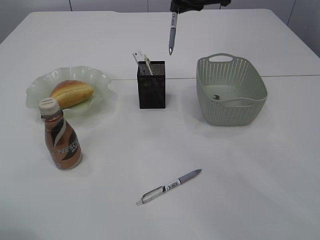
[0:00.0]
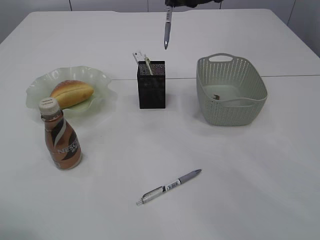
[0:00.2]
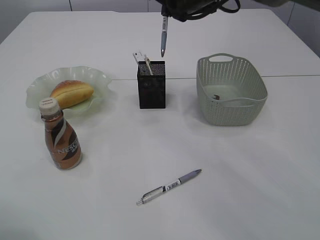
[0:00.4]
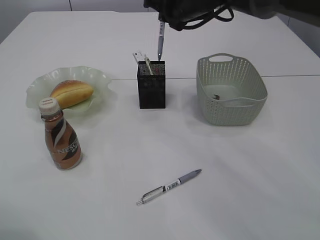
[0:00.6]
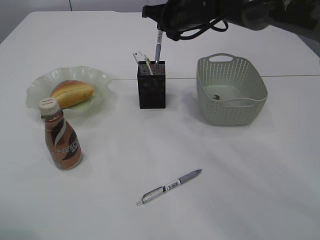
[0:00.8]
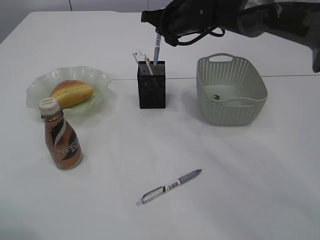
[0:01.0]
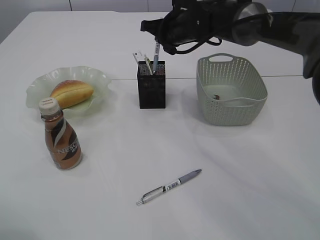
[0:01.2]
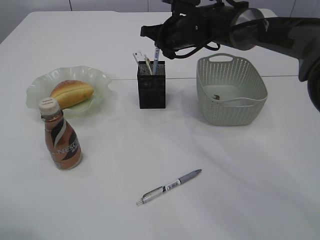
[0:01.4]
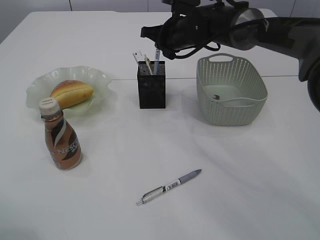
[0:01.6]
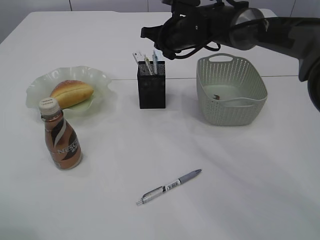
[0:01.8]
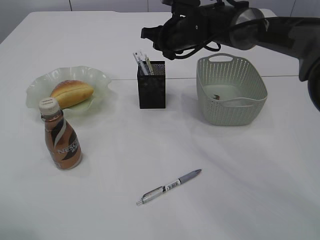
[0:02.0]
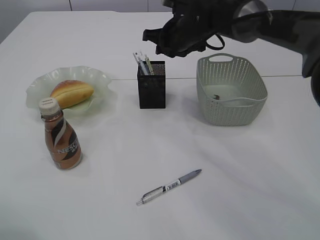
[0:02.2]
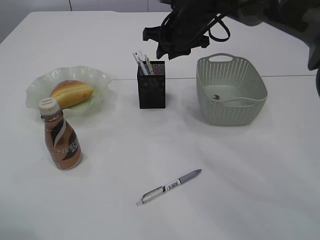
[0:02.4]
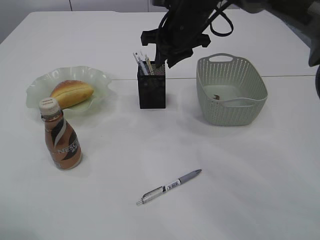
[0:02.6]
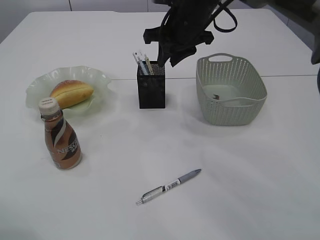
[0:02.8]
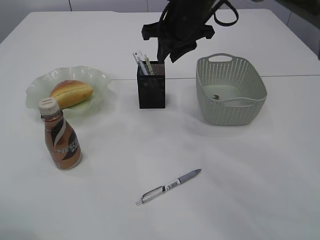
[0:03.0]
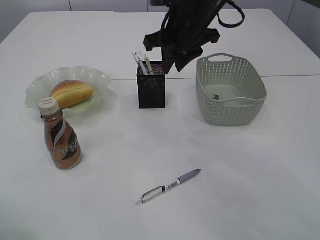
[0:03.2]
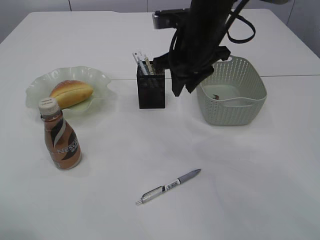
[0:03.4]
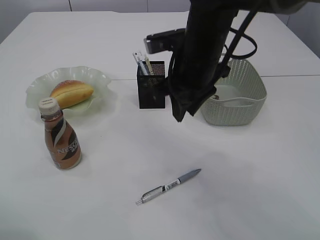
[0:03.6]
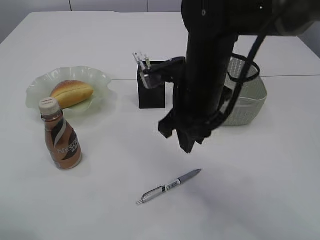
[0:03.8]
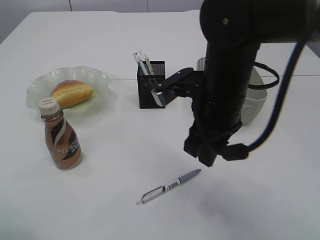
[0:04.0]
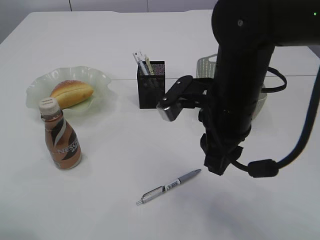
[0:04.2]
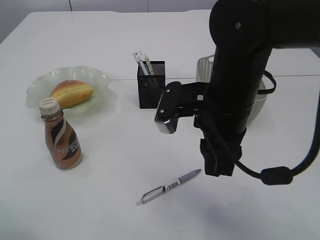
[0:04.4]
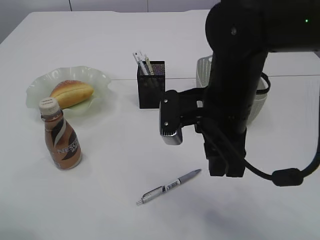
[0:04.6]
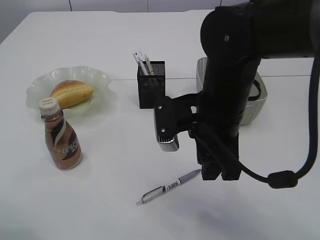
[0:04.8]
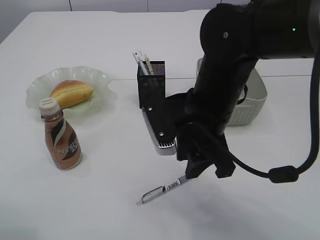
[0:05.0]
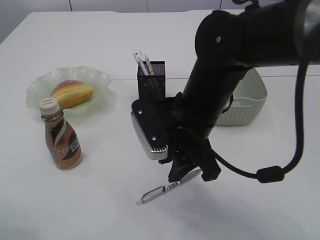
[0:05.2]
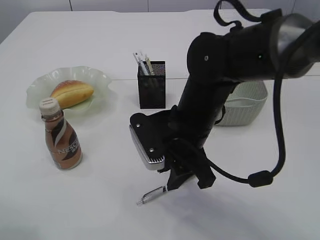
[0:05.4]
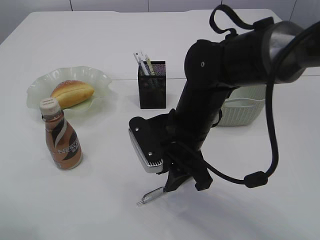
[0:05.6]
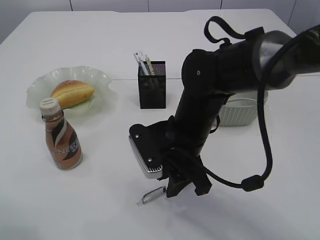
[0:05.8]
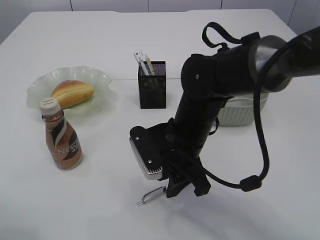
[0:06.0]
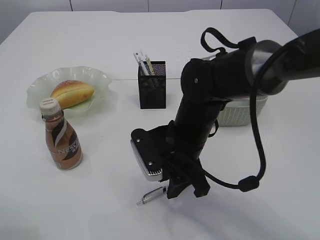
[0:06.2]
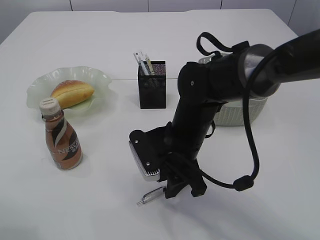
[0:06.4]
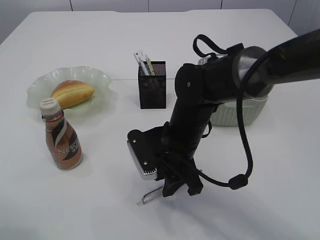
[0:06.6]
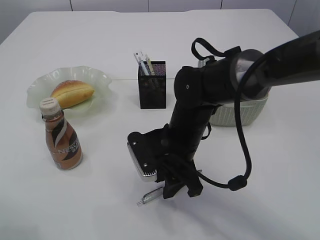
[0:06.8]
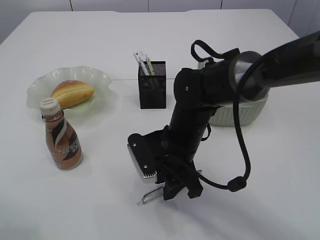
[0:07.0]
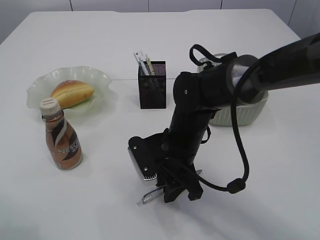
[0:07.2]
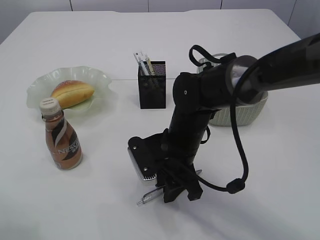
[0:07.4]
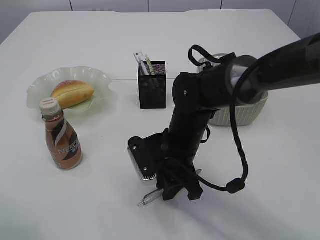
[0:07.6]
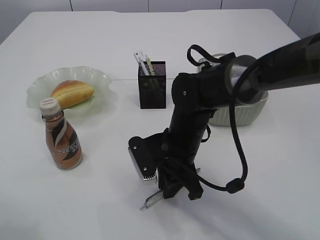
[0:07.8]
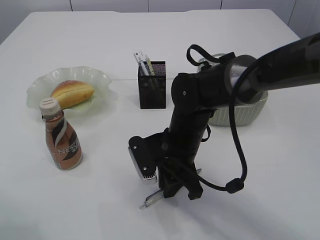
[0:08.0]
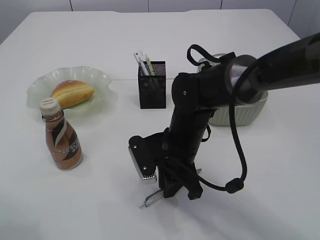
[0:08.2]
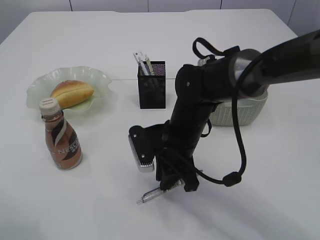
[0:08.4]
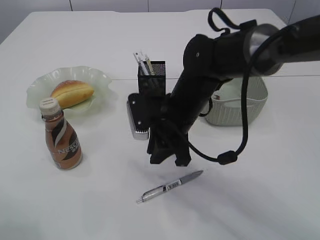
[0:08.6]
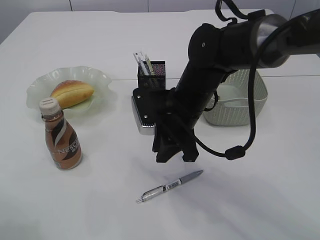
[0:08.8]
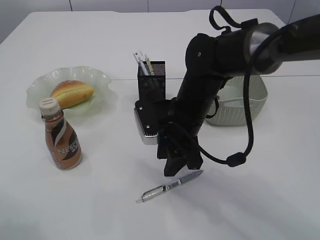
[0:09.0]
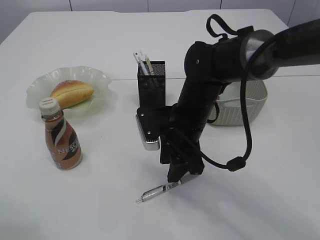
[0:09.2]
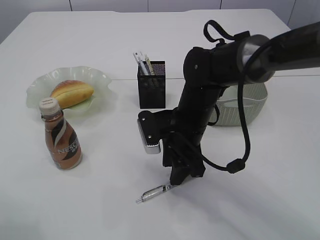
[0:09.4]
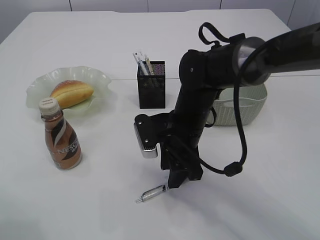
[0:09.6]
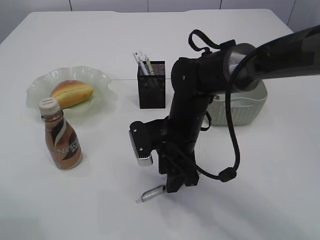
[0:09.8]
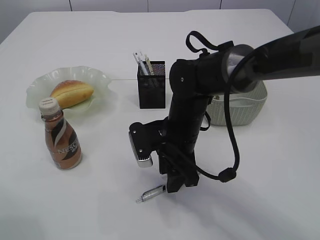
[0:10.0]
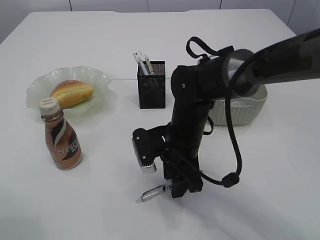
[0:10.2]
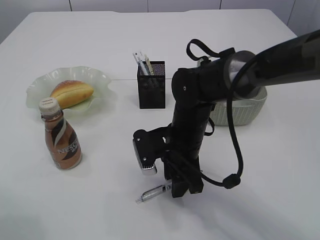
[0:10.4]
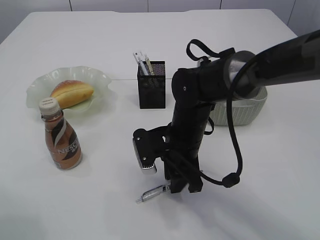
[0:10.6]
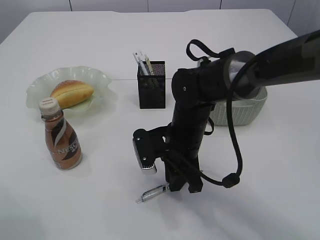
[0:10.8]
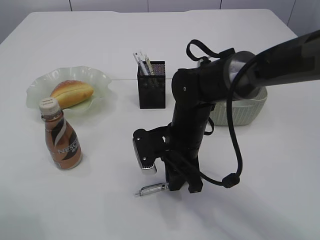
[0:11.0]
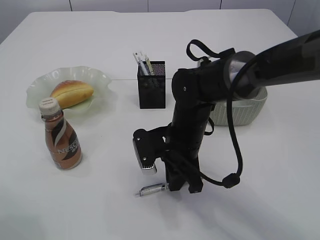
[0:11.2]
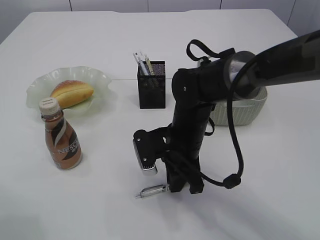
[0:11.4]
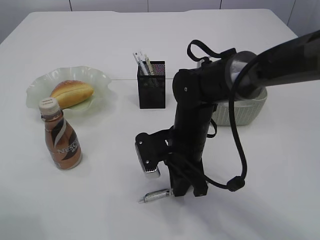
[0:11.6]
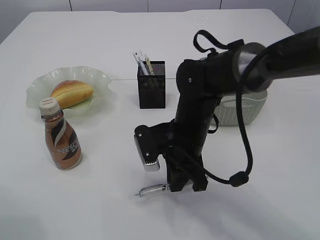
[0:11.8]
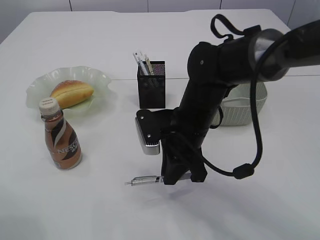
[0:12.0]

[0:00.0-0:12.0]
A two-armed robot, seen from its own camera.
Step, 0.0 to 2.0 s: Place the pen into the pen holder.
0.0 to 1.6 s: The right gripper is displaced downward and forward by some 15 cm.
1.6 to 3.0 s: The right gripper travels upward and backward by roughly 10 cm.
3.0 to 4.4 s: The right gripper moves backward, approximately 20 cm.
4.4 to 6.0 s: The right gripper travels downward by some 10 cm.
6.0 to 7.6 s: The grippers stay close to where they were, moving slightly.
7.6 to 9.0 s: The right gripper changes place by some 5 cm.
9.0 to 10.4 s: The grippers move only a little.
10.4 to 12.0 s: The right gripper closes its fingers.

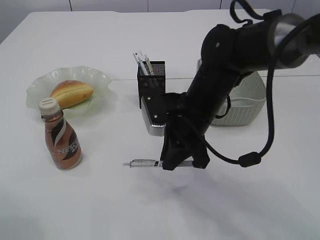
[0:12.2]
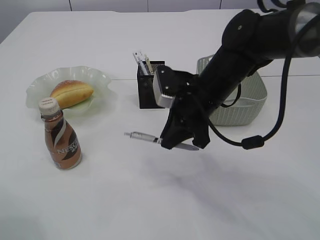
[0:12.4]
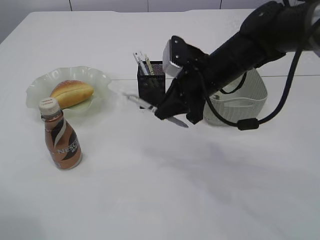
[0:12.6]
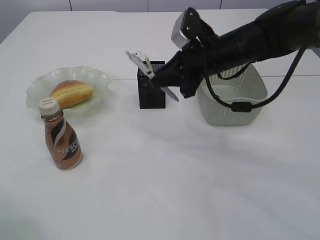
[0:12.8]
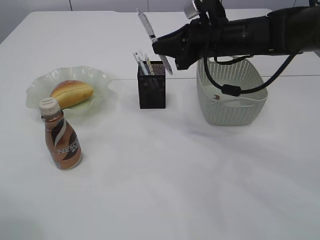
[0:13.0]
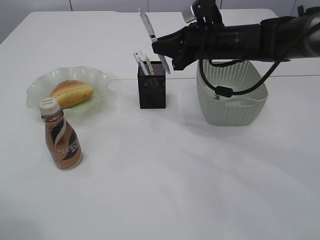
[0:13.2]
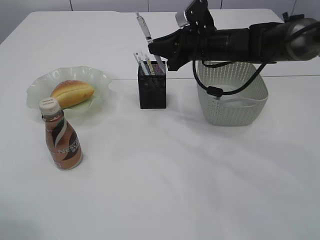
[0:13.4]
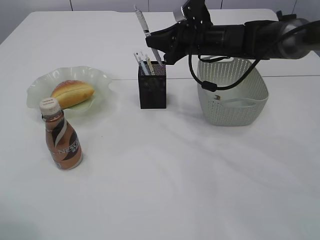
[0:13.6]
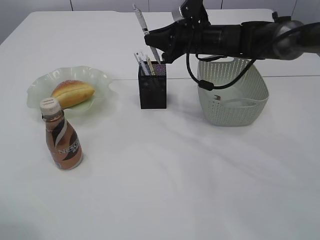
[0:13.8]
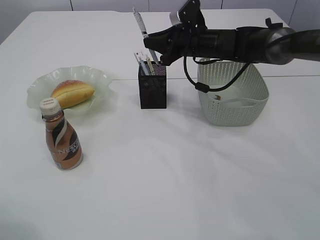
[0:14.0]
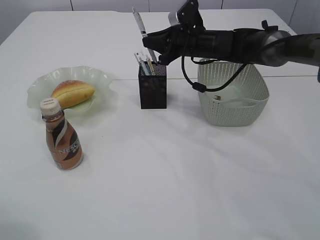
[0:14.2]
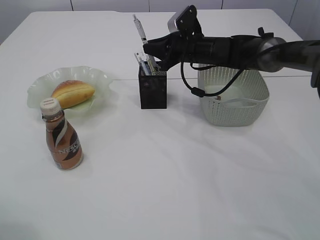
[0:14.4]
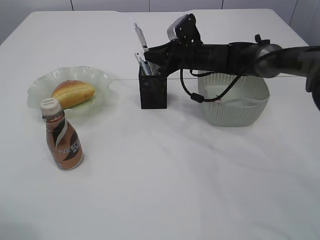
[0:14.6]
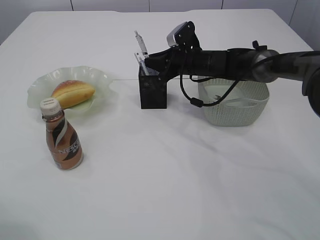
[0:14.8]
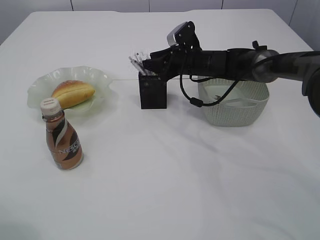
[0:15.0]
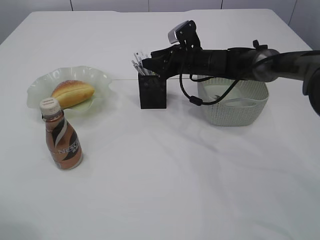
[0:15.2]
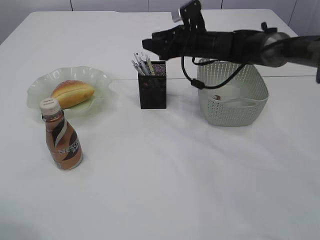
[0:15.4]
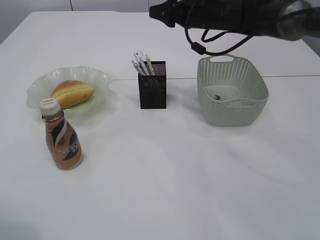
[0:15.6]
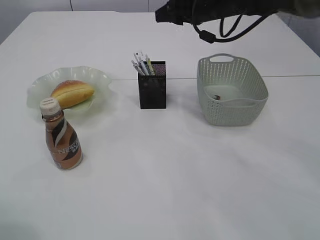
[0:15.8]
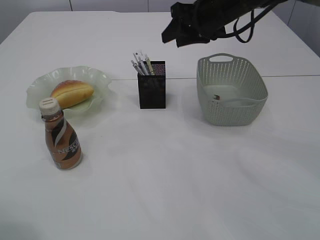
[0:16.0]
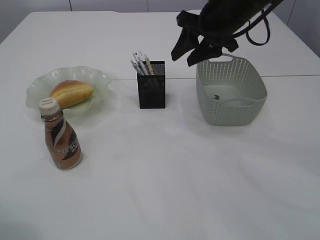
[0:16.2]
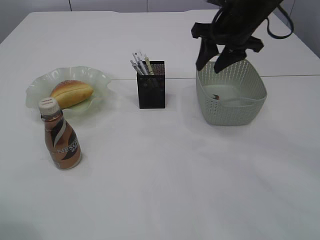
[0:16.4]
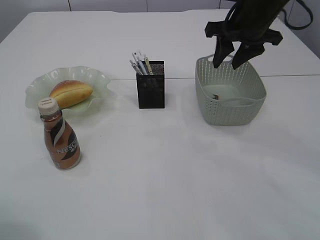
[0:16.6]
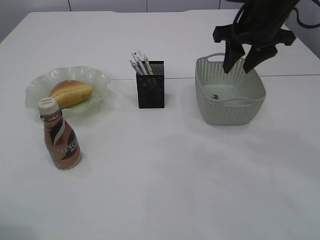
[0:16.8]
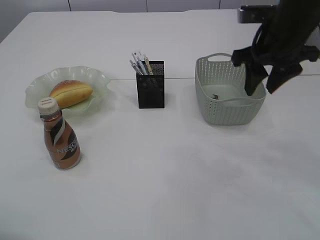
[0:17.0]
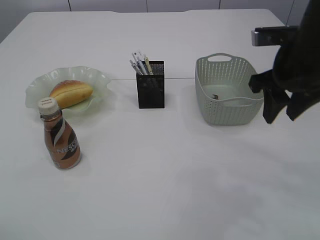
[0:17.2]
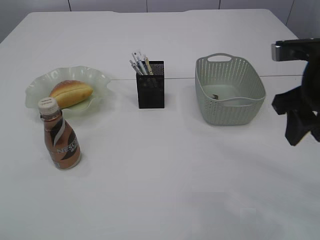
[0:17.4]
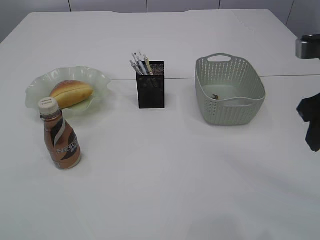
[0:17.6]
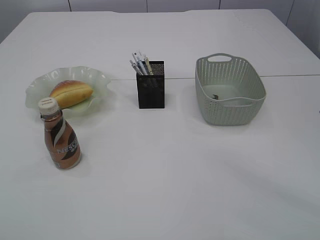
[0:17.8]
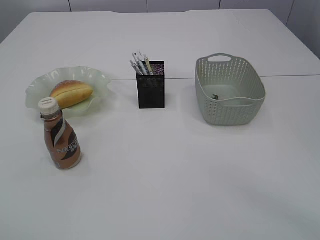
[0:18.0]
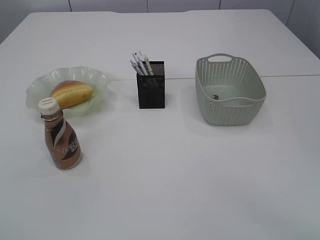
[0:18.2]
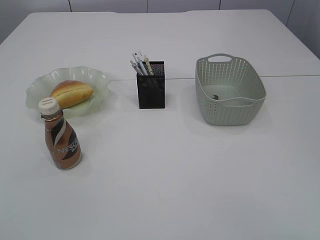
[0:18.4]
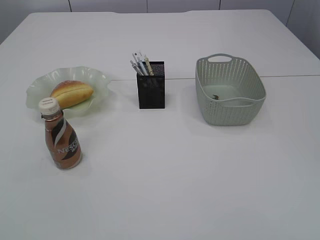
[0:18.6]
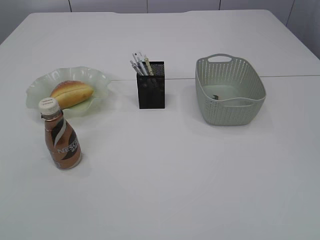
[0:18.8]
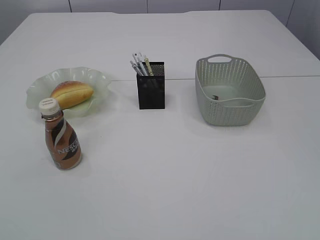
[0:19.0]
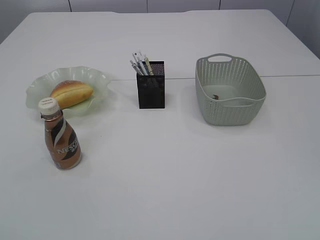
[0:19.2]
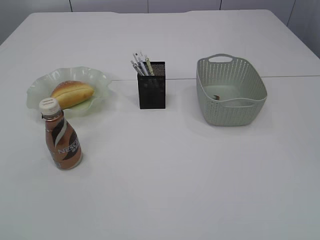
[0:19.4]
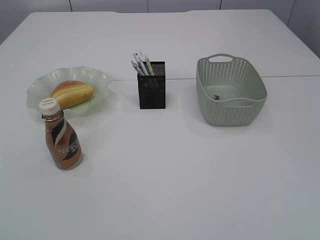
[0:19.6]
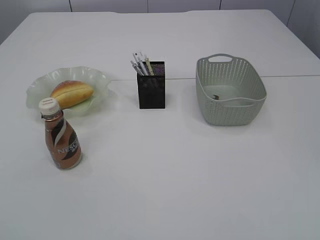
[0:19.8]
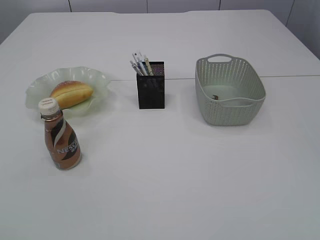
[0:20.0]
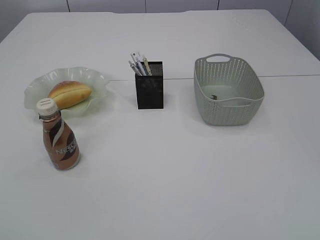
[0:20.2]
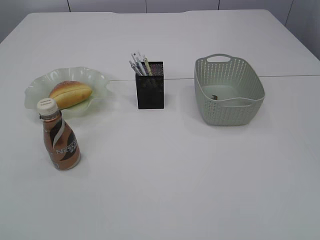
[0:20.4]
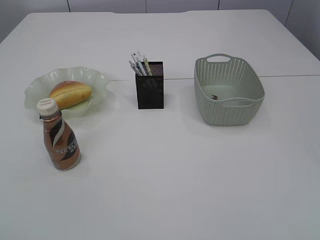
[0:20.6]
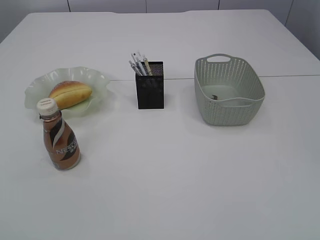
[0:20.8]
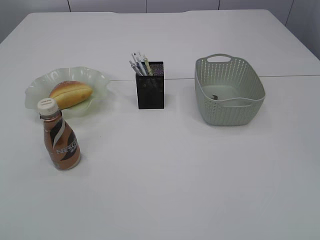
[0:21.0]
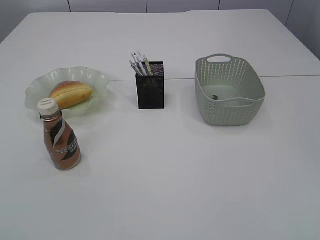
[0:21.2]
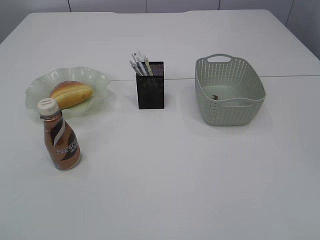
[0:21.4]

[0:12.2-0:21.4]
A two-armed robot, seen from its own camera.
Step, 12.6 to 15.6 s: Place the pen into the pen holder.
12.2 to 13.8 s: The right gripper is displaced forward by some 15 cm.
13.8 to 15.2 s: The right gripper shifts some 5 cm downward, and opens up.
15.2 to 16.8 s: The right gripper travels upward, backward and to the right by about 20 cm.
16.8 to 18.4 s: The right gripper moves backward, approximately 35 cm; the left gripper travels backward by roughly 20 cm.

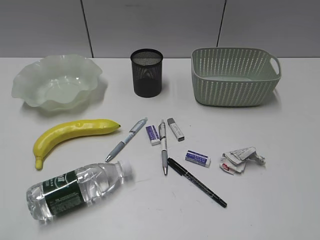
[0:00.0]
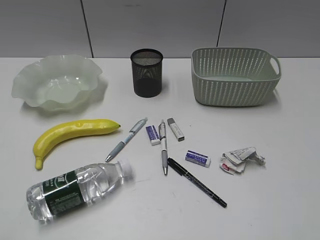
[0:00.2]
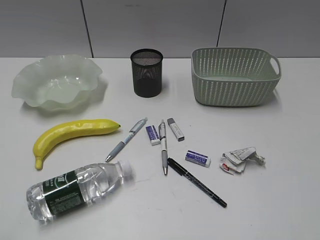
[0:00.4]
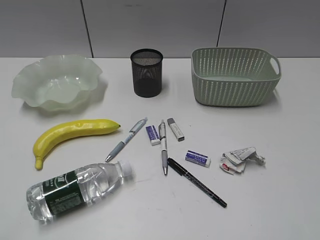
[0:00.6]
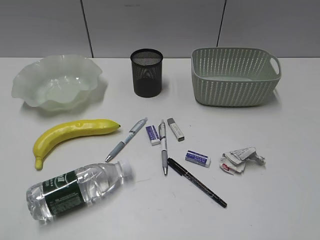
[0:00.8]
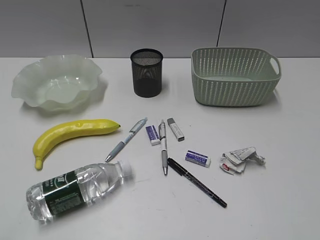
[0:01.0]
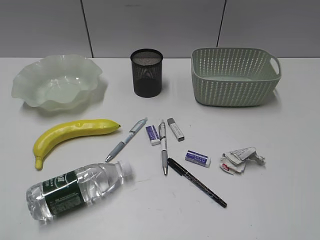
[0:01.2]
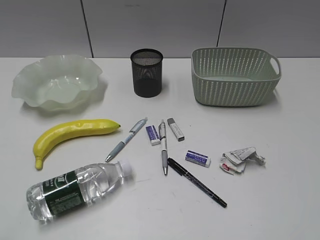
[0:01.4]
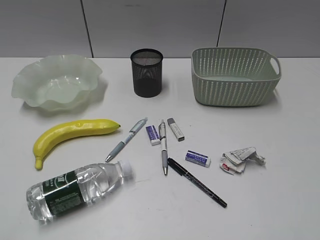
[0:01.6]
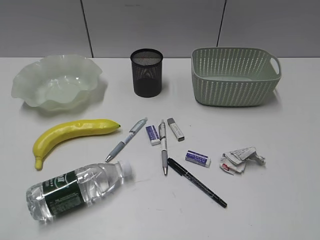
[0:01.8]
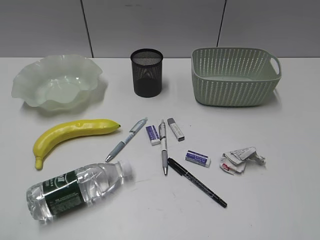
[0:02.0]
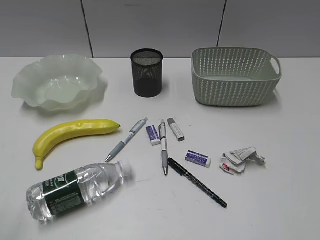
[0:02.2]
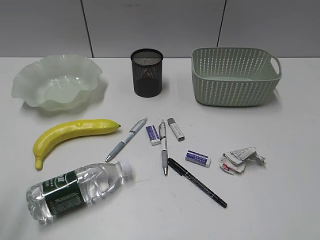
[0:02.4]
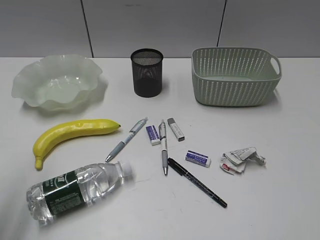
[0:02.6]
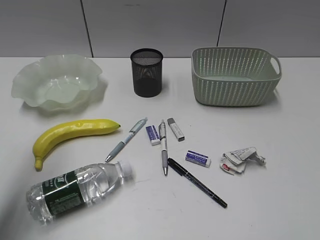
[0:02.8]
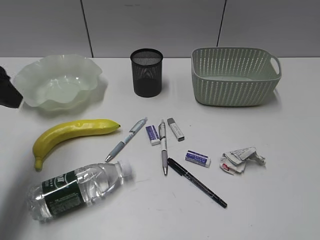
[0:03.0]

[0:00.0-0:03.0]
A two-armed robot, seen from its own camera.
1.6 to 3.0 s: The left gripper travels forward by about 25 cm.
